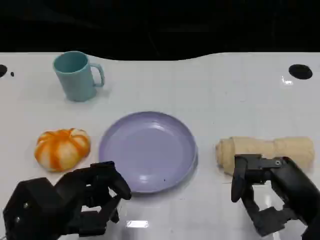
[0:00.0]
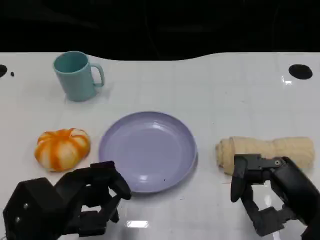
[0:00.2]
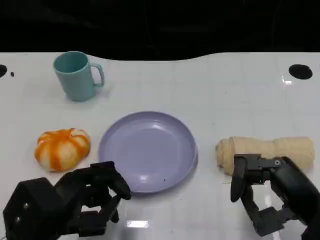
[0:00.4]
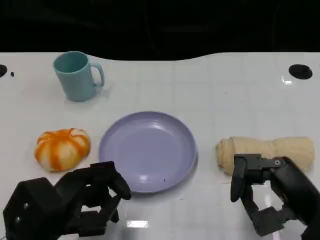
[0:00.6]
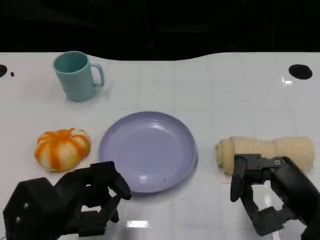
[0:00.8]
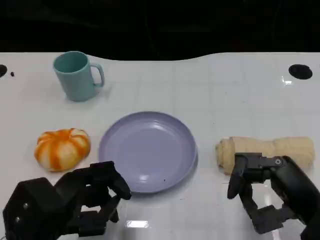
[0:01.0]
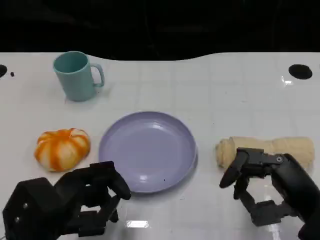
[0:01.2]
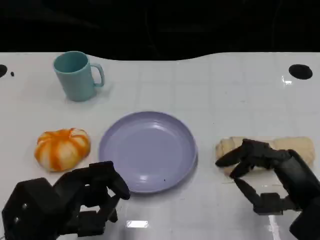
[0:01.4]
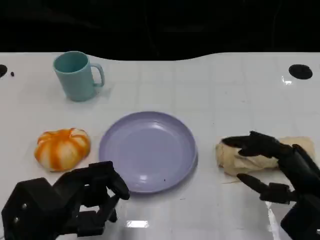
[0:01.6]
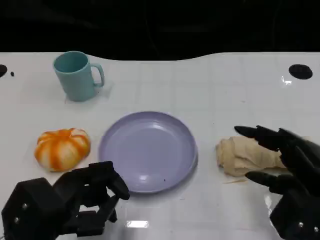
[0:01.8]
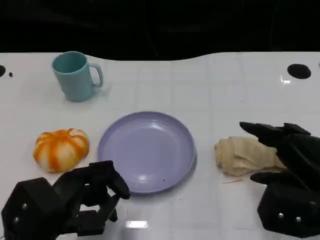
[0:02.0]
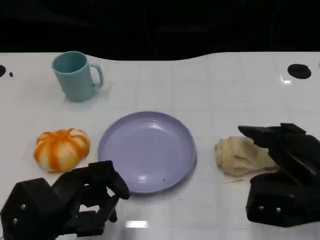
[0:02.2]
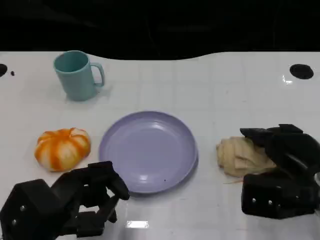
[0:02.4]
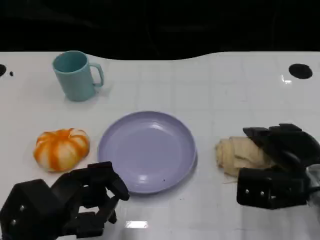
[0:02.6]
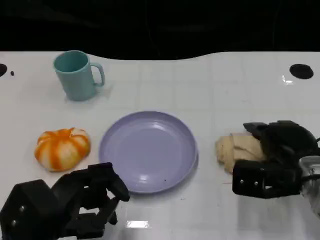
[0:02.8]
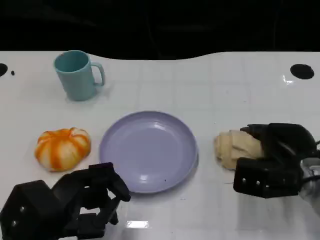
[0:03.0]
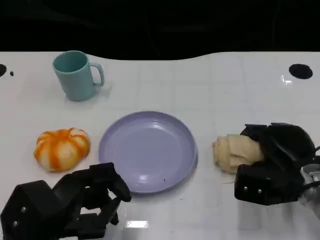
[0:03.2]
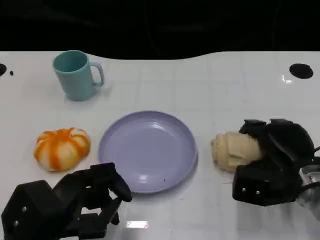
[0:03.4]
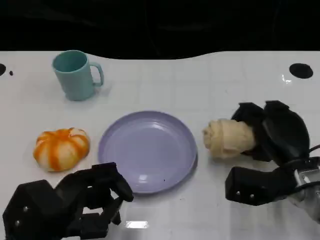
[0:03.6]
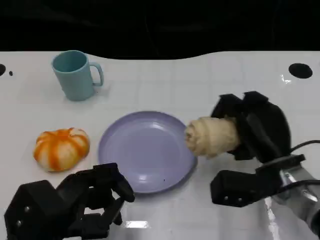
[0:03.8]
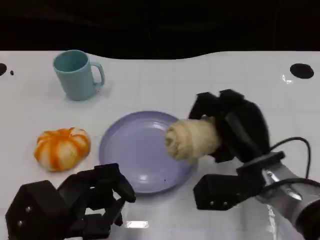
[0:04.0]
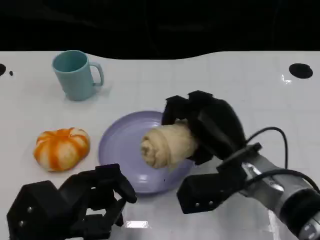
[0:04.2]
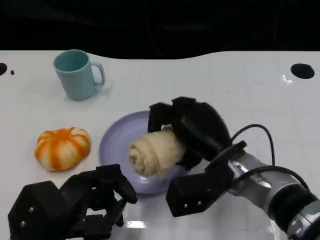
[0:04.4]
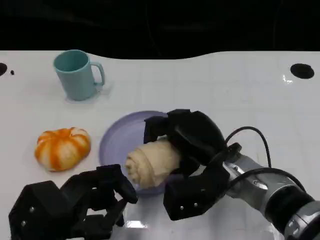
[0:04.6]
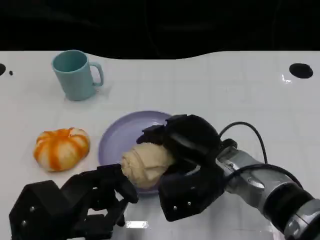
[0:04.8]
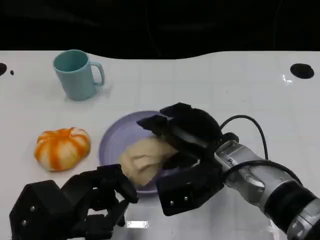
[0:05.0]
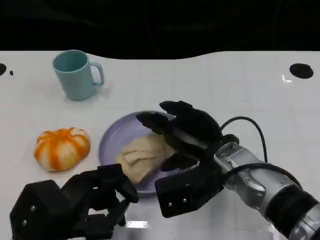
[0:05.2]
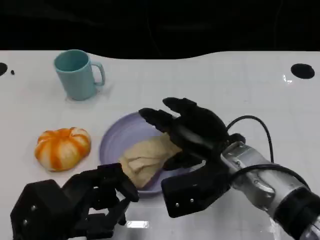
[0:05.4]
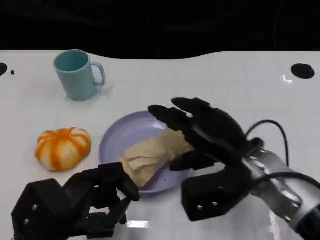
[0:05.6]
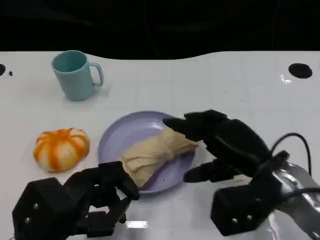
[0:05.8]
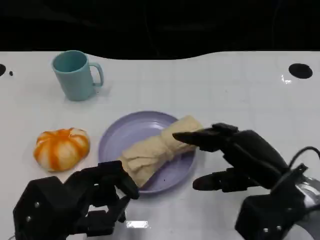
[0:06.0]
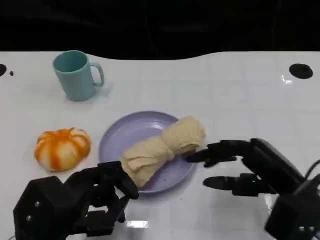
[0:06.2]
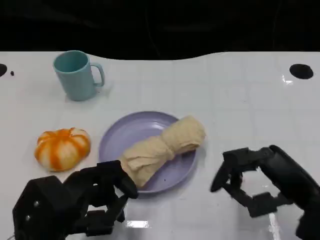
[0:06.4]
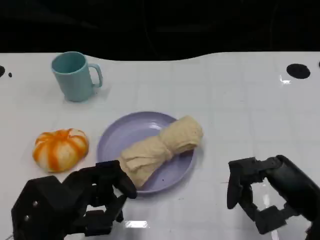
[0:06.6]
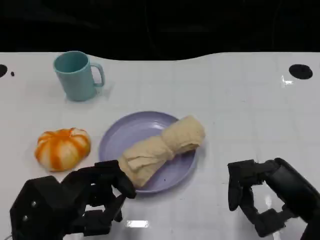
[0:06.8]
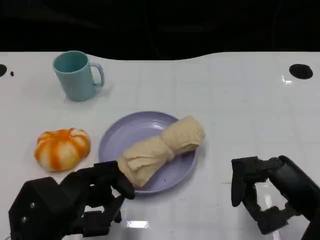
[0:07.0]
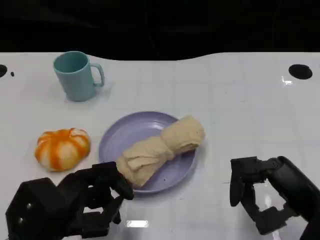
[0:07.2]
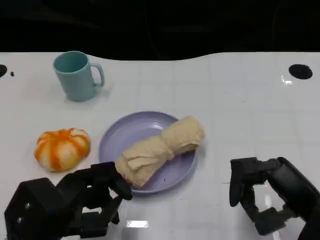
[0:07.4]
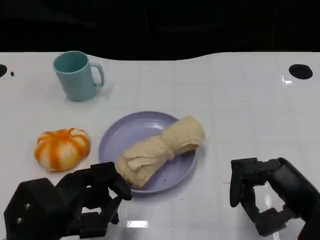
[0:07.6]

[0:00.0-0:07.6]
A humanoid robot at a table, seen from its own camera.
Task of the whole recording: Grasp the towel on the left side of the plate with the left hand and place it into the plate.
0:01.6 to 0:03.0: The right hand heads forward, covering some 10 cm.
0:03.0 to 0:04.6: The right hand shifts about 10 cm to the left.
0:04.6 to 0:06.0: The right hand shifts approximately 10 cm to the right.
0:06.0 to 0:07.6: The right hand moves some 5 cm.

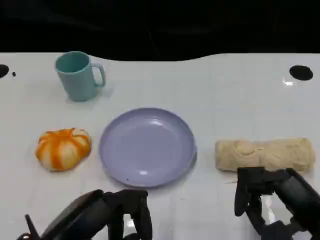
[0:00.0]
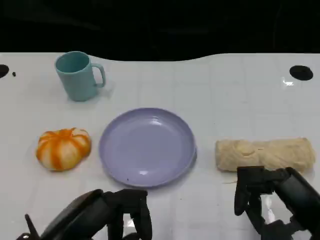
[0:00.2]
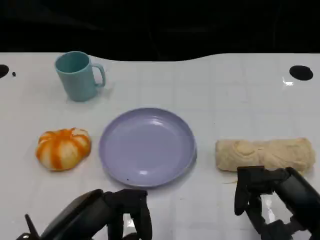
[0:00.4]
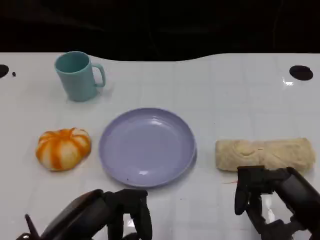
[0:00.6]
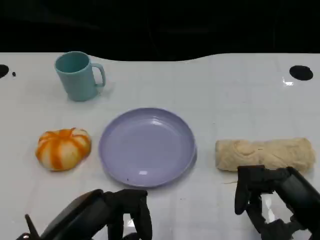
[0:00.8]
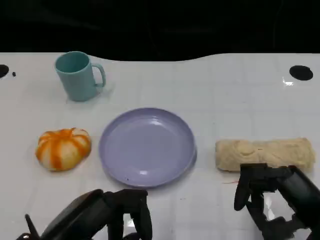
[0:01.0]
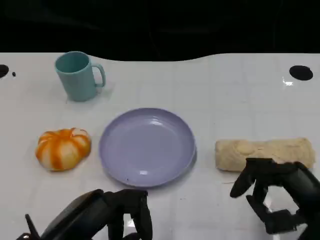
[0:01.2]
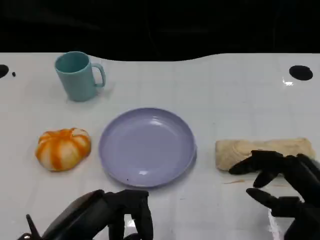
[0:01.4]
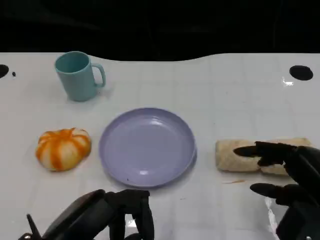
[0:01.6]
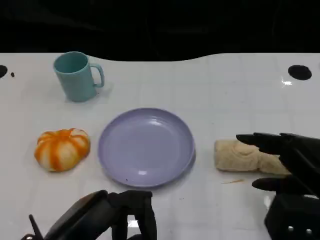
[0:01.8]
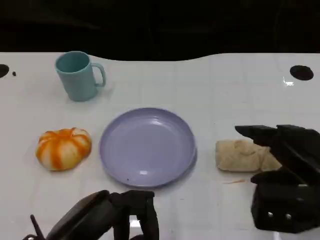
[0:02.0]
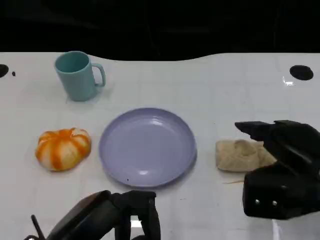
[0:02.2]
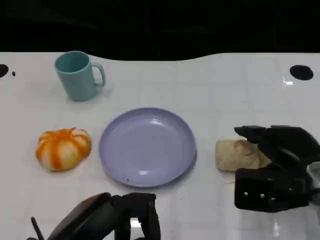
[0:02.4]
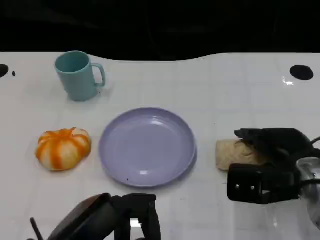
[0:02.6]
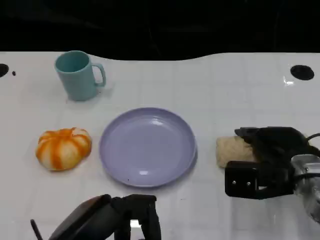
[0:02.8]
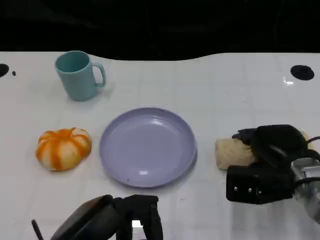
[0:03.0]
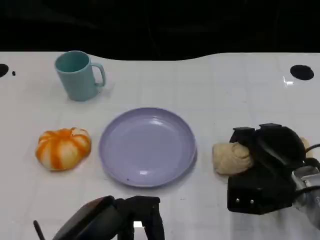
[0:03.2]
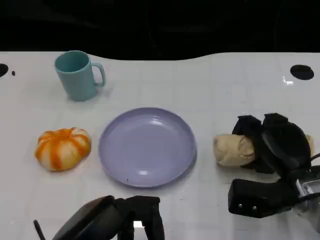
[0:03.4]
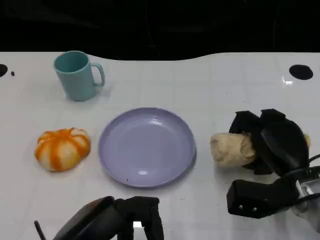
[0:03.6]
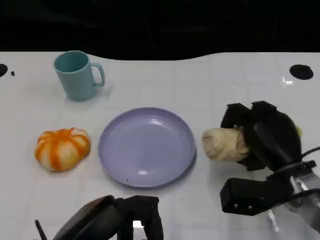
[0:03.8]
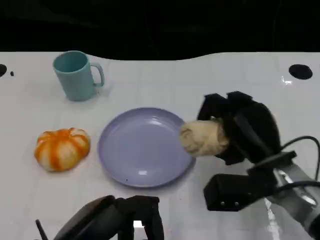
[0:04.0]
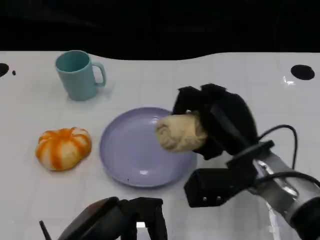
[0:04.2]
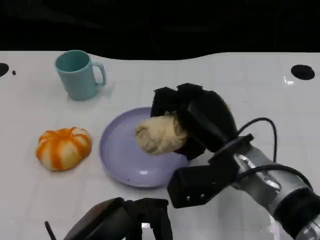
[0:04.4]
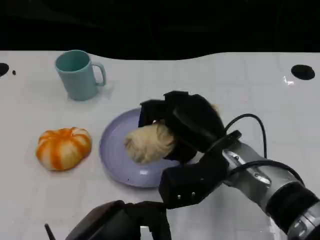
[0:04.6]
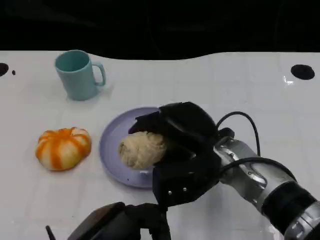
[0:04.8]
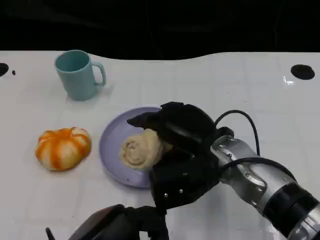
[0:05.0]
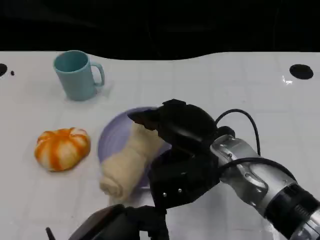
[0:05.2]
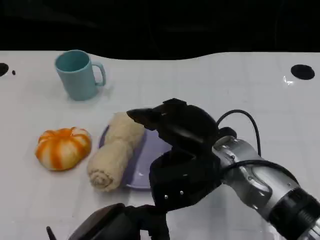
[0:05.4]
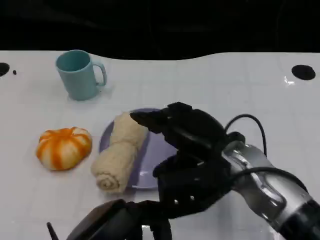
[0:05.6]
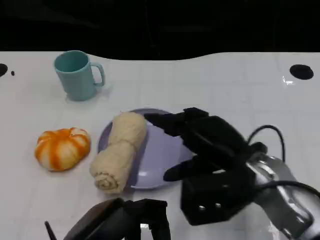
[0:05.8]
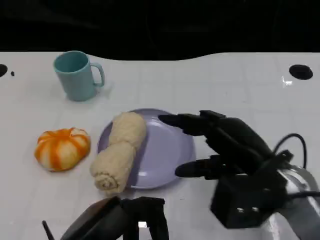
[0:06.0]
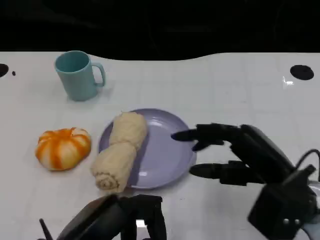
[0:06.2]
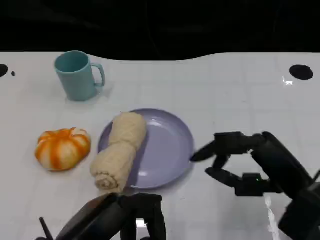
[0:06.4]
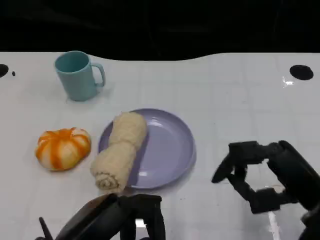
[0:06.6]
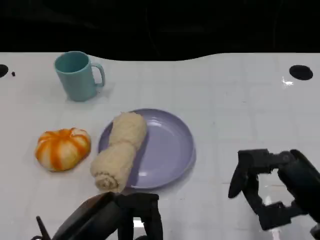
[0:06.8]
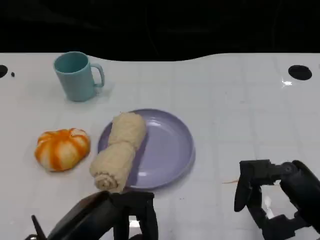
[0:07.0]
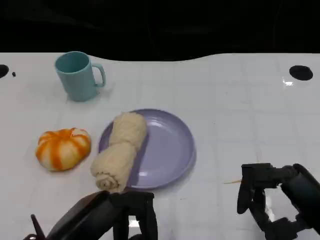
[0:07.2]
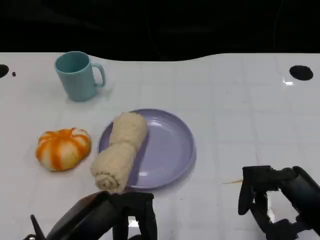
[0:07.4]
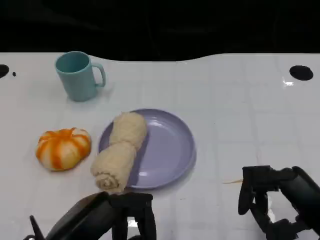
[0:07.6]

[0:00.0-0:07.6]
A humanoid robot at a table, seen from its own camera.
Task of the whole recording: Grasp the towel on the left side of the plate with the left hand and place it into the plate.
0:01.6 to 0:03.0: The right hand is displaced forward and downward by some 10 cm.
0:03.0 to 0:04.6: The right hand heads to the left, covering about 10 cm.
0:04.6 to 0:06.0: The right hand moves to the right, about 10 cm.
0:06.0 to 0:07.6: The right hand shifts roughly 10 cm to the right and backward.

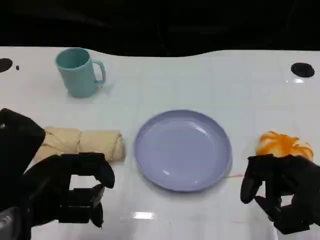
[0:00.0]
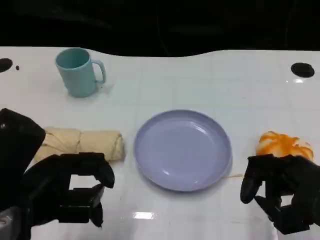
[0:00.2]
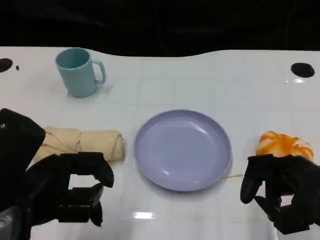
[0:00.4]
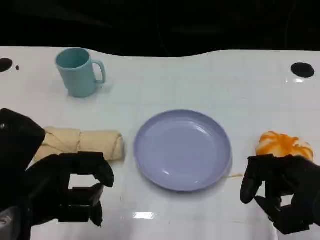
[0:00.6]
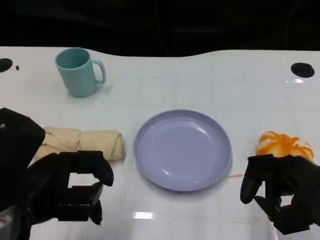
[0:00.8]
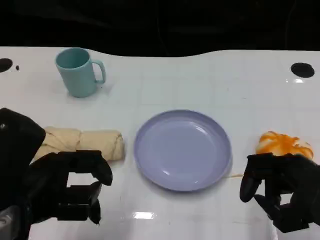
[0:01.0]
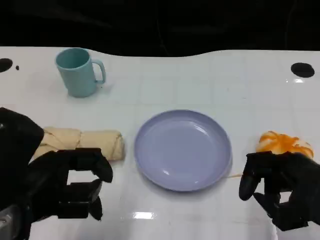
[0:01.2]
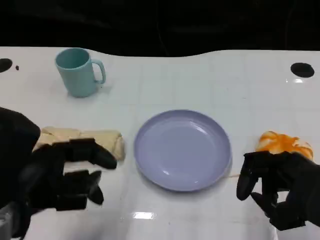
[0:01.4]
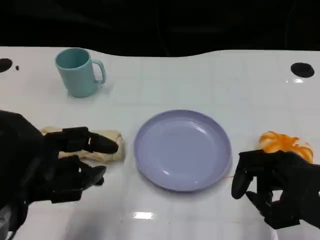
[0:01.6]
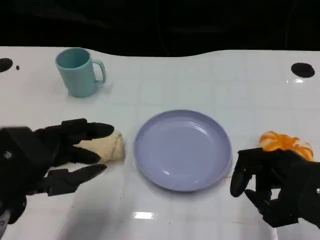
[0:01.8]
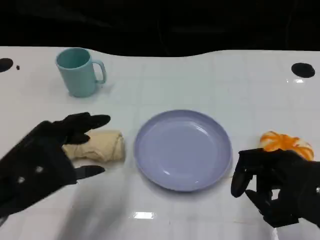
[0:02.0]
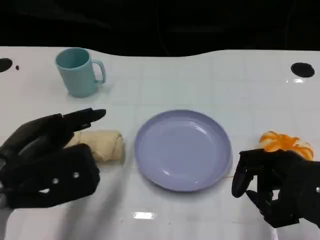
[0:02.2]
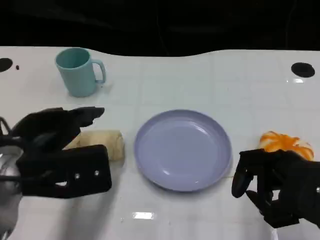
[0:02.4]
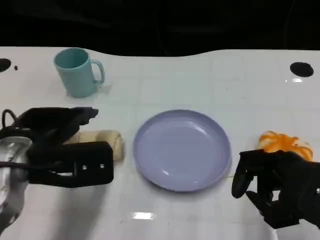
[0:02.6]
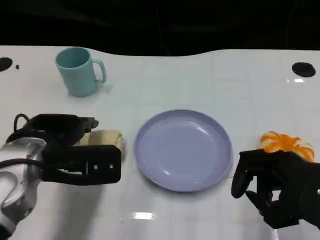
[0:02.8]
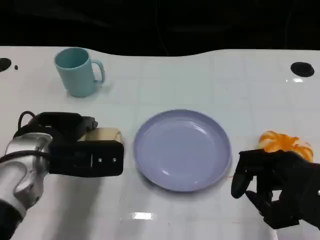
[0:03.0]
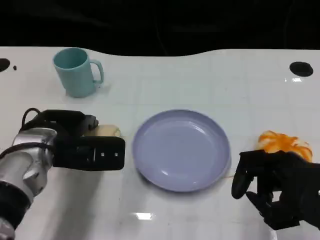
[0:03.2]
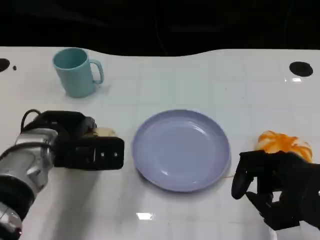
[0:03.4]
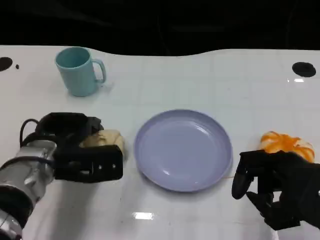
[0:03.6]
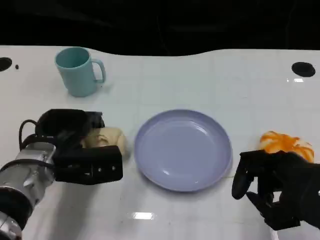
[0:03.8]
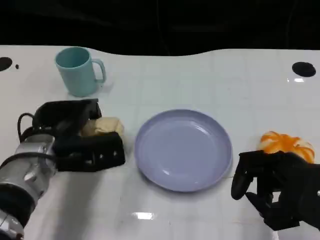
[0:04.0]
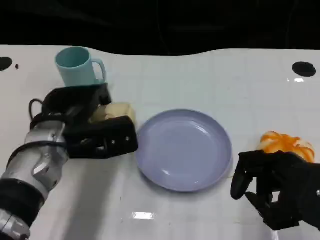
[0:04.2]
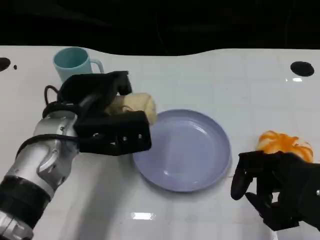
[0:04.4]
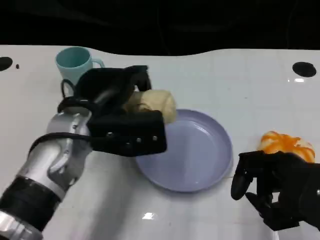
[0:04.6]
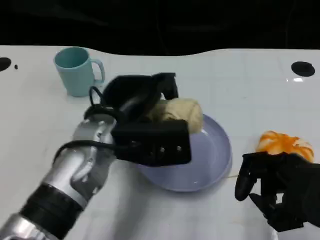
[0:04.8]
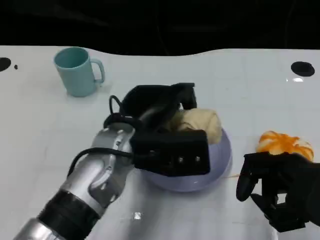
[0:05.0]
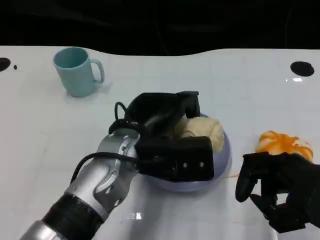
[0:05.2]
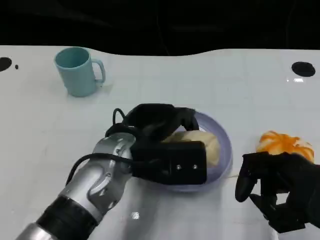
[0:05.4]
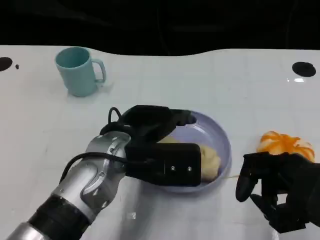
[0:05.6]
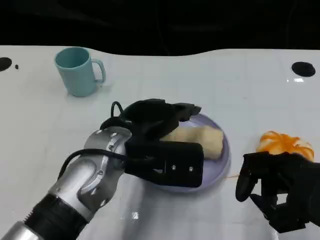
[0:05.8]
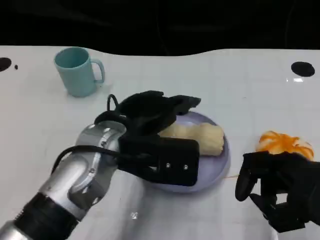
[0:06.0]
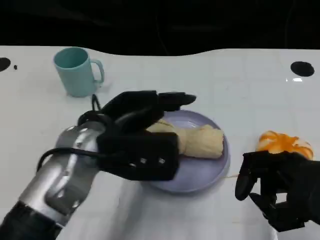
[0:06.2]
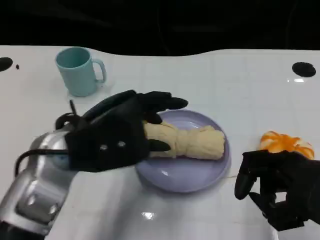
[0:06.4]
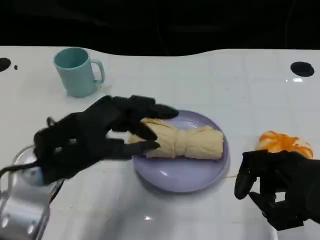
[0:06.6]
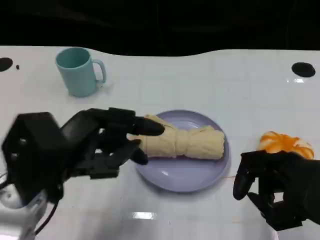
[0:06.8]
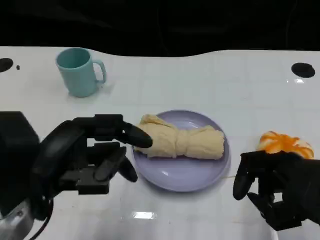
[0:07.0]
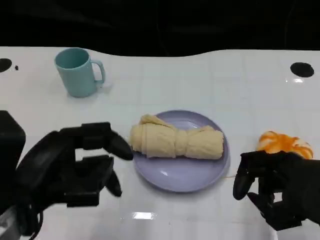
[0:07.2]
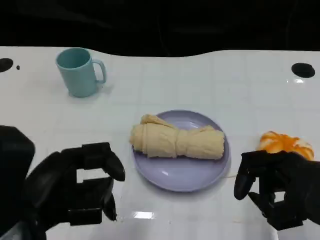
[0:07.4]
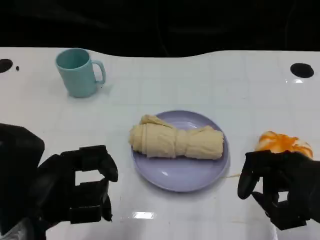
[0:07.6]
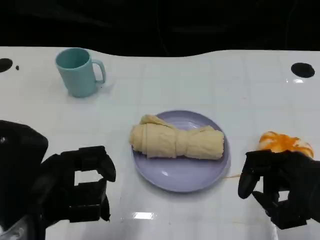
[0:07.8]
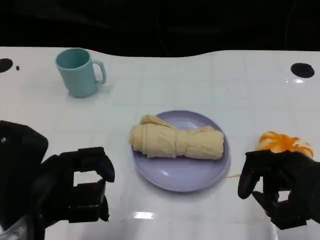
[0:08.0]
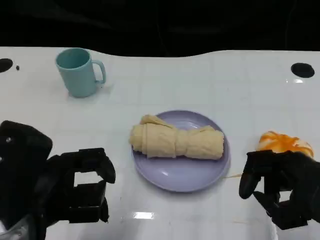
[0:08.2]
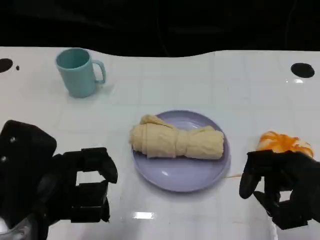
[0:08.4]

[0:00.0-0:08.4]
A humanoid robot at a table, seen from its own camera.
Task of the whole recording: Grasp the towel on the left side of the plate with the left hand and place it into the plate.
0:00.0 to 0:01.4: The hands stay close to where they were, moving slightly.
0:01.4 to 0:02.8: The left hand is displaced forward by roughly 10 cm.
0:04.2 to 0:05.6: The left hand heads to the right, covering about 10 cm.
0:05.6 to 0:07.0: The left hand moves to the left and backward, roughly 15 cm.
